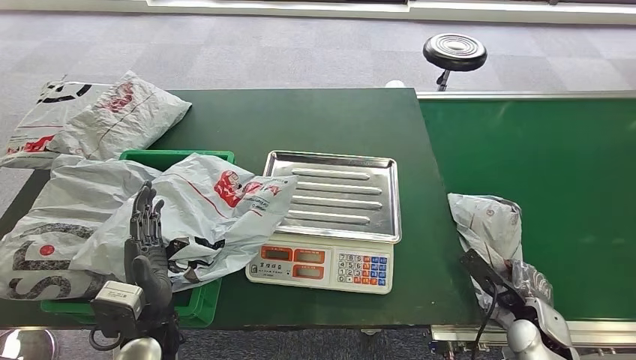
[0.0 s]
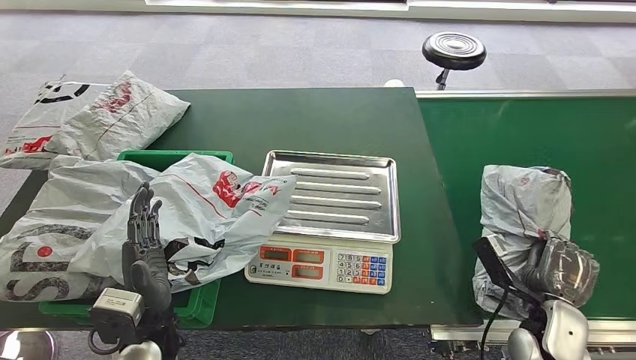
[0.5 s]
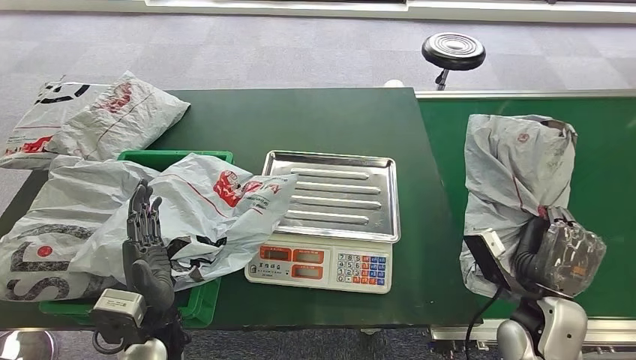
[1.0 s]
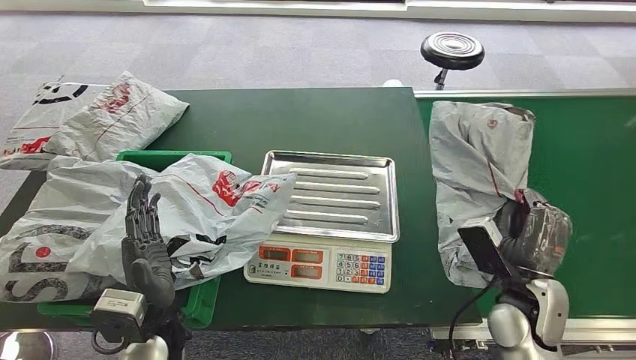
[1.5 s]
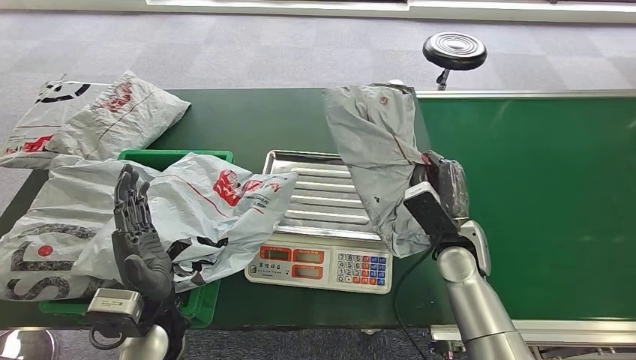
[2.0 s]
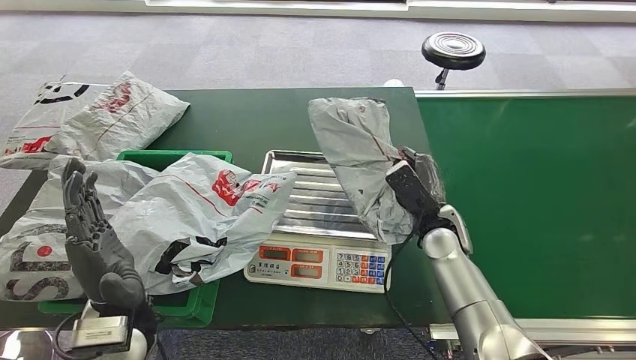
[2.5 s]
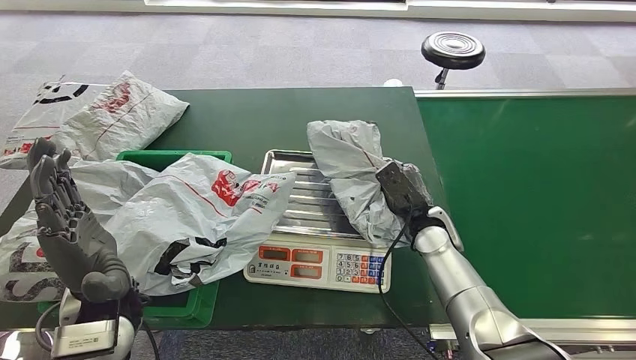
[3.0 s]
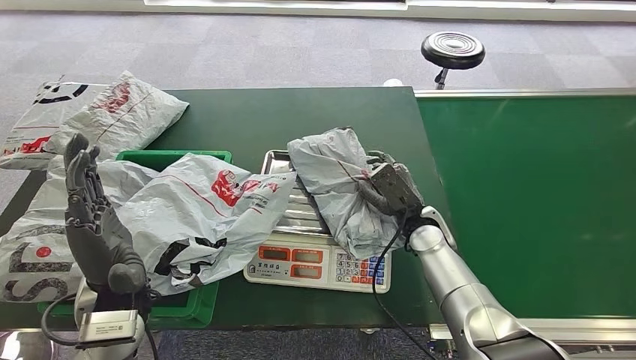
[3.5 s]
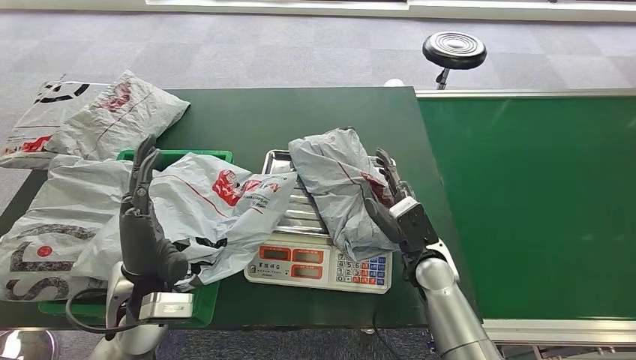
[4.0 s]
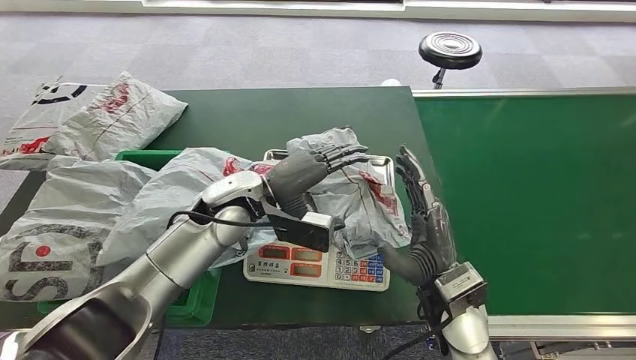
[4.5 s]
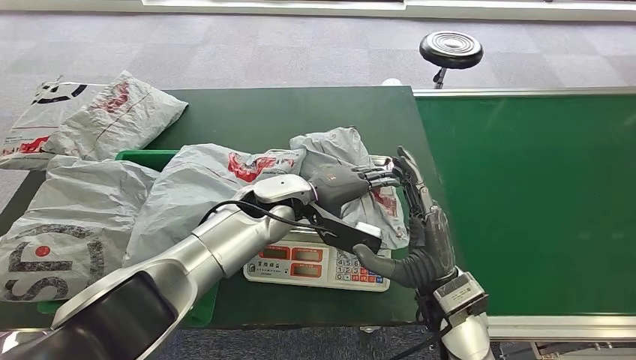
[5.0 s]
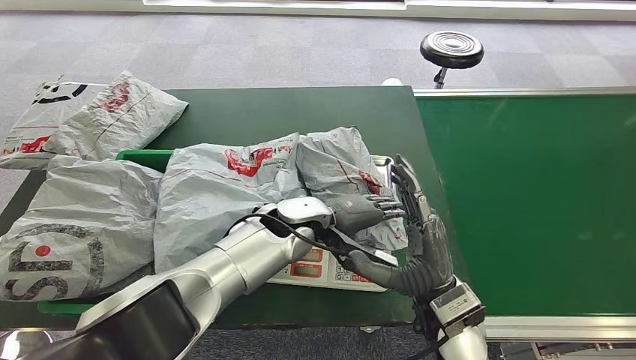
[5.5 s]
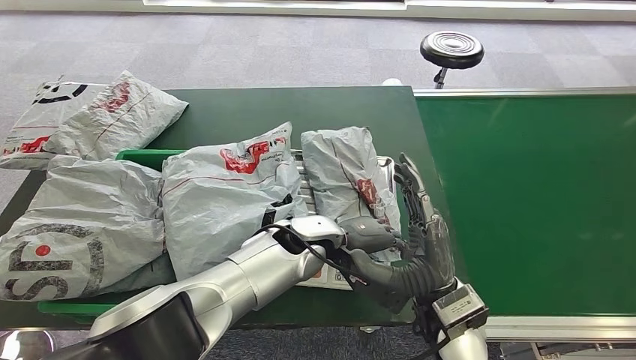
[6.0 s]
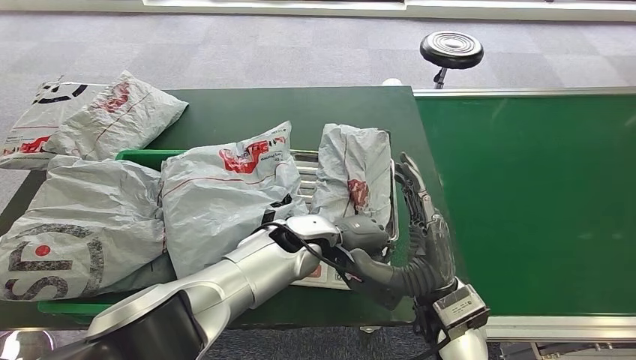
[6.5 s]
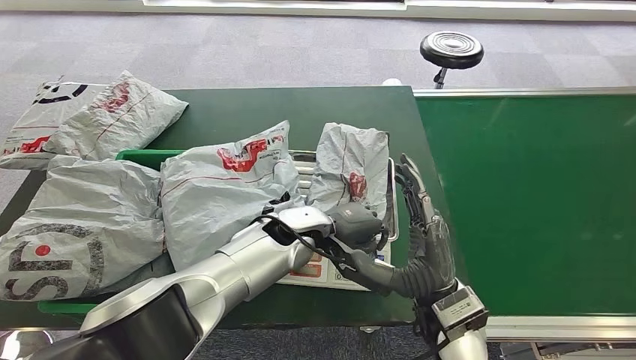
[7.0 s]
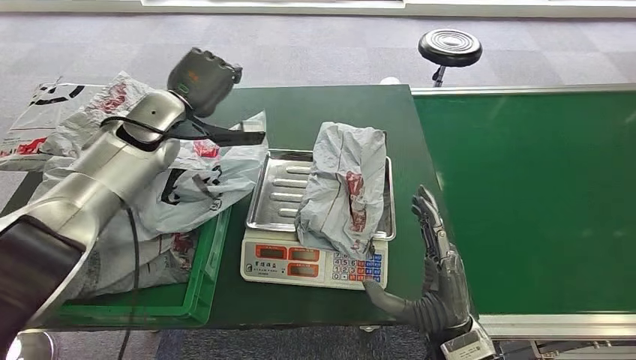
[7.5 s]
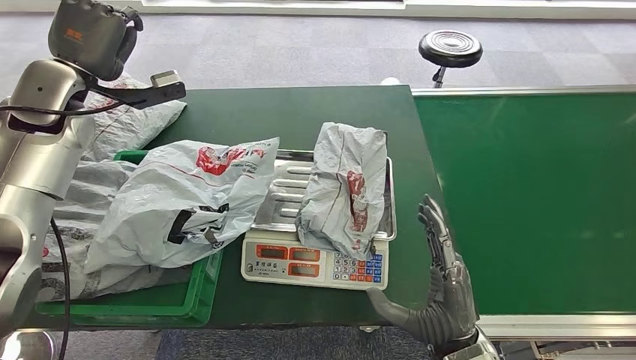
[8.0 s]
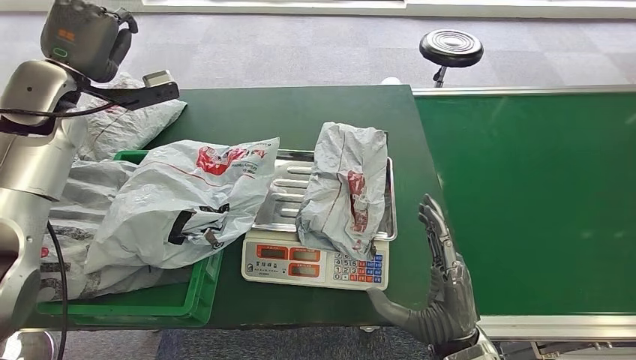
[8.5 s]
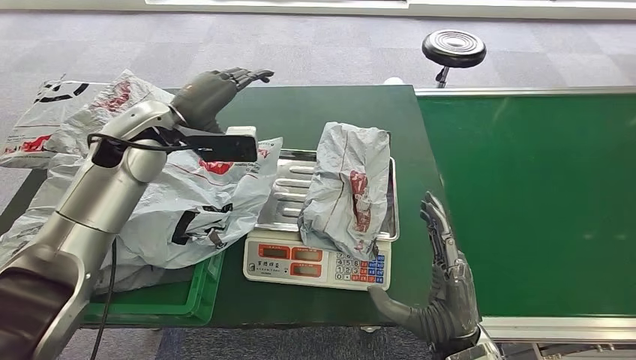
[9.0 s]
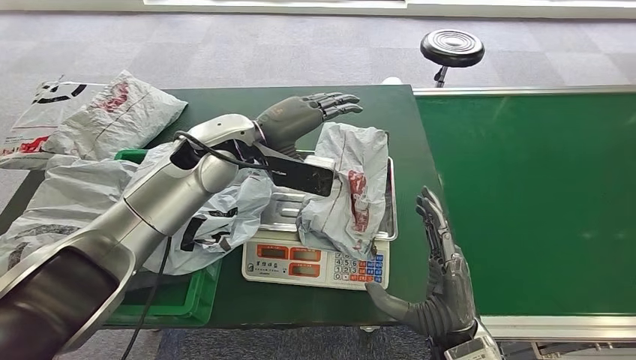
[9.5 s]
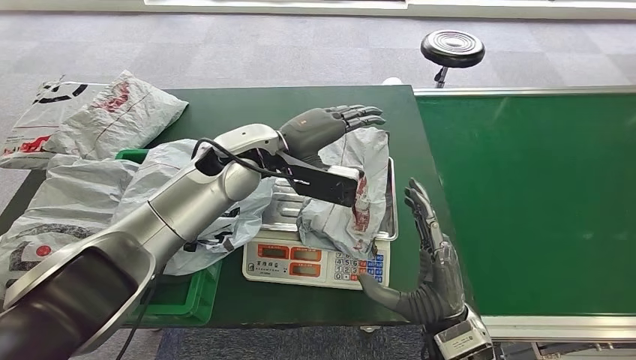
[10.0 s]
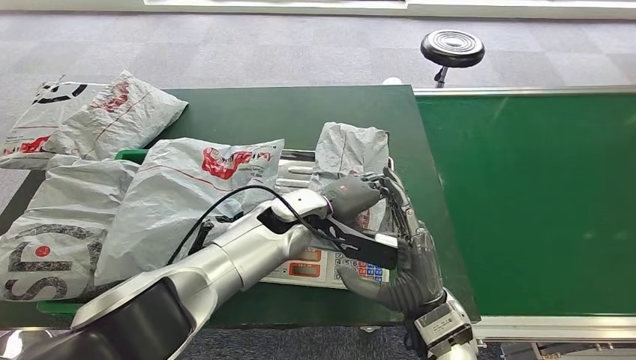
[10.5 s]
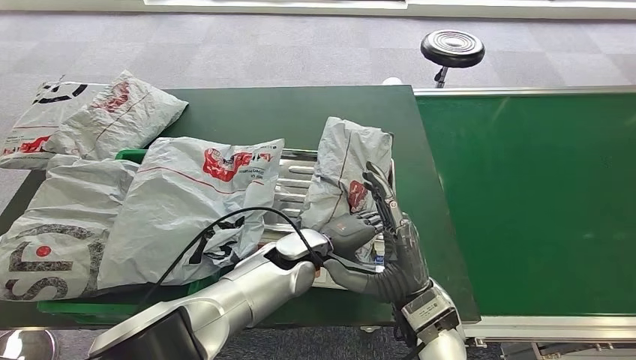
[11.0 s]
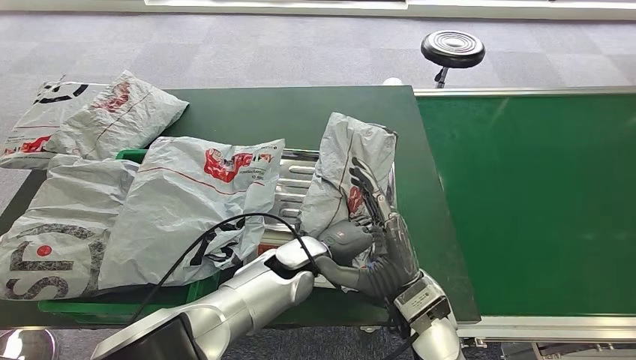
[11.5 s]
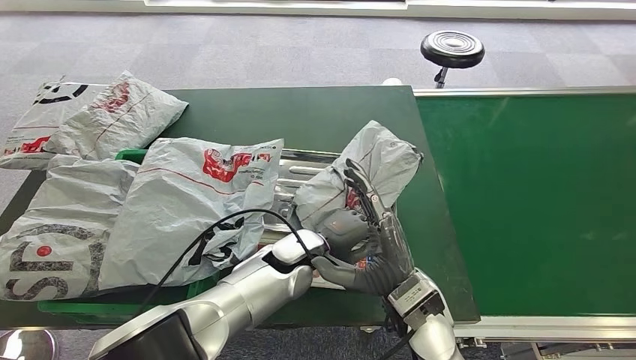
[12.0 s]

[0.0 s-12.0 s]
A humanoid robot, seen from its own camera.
Step, 0.0 to 1.0 s: Pick up the parcel from the conveyor belt.
Step, 1.5 to 3.0 s: Place the parcel onto the inbound machine.
0.0 to 2.0 s: The right hand is displaced to the left, upward and forward by roughly 20 cm.
2.0 to 4.0 s: The right hand shifts some 5 cm to the left, while the left hand shifts roughly 5 cm upward.

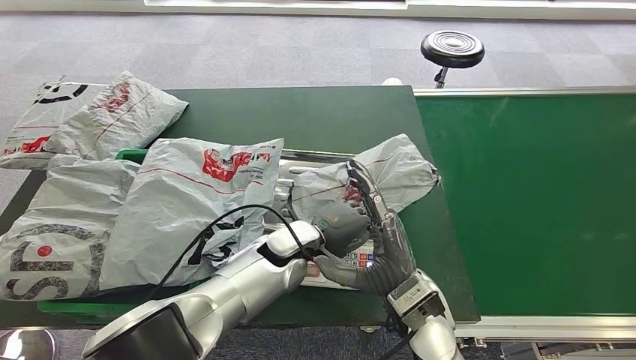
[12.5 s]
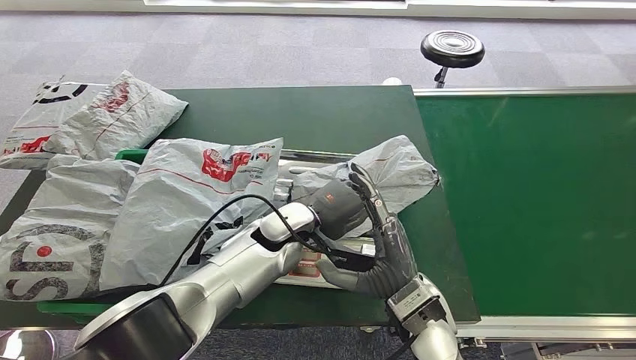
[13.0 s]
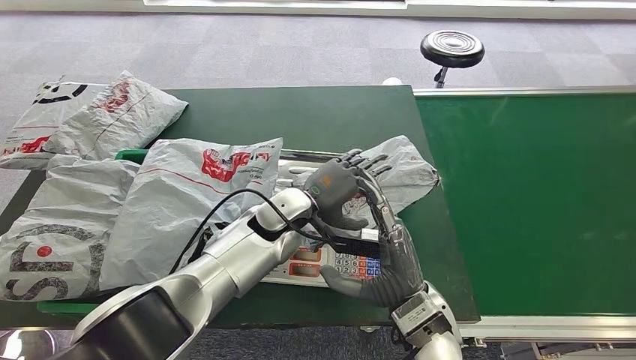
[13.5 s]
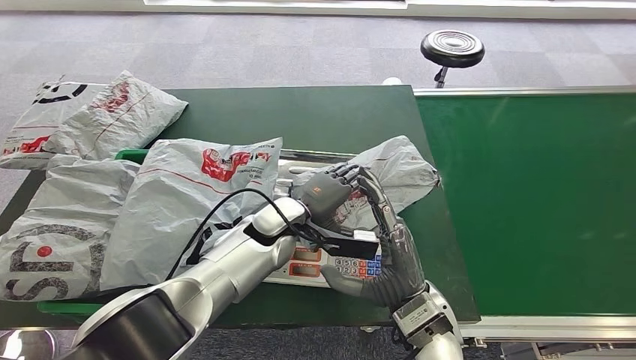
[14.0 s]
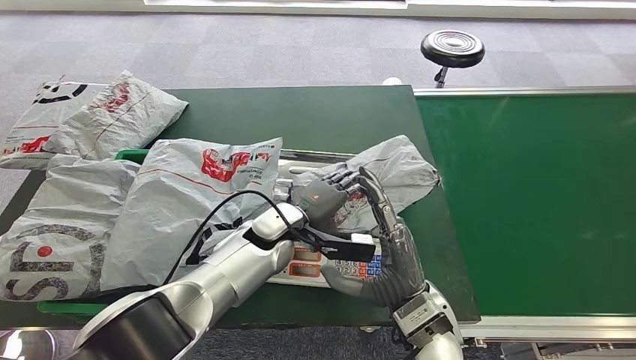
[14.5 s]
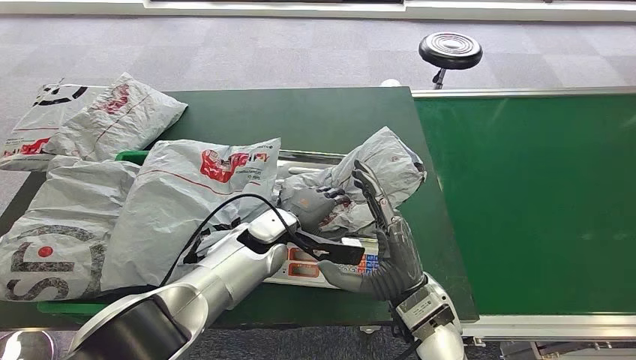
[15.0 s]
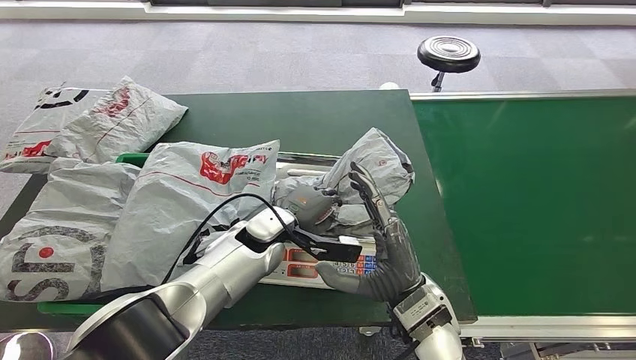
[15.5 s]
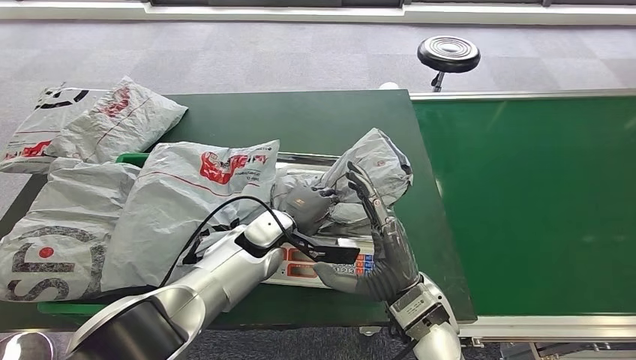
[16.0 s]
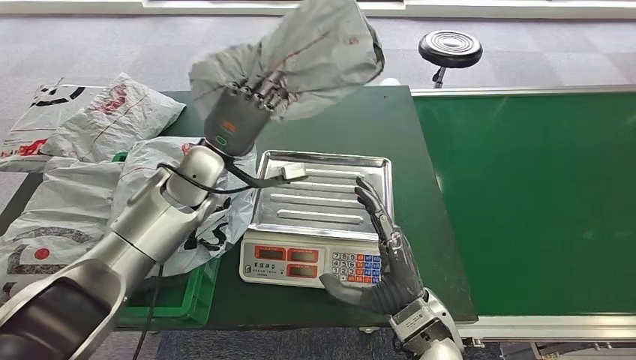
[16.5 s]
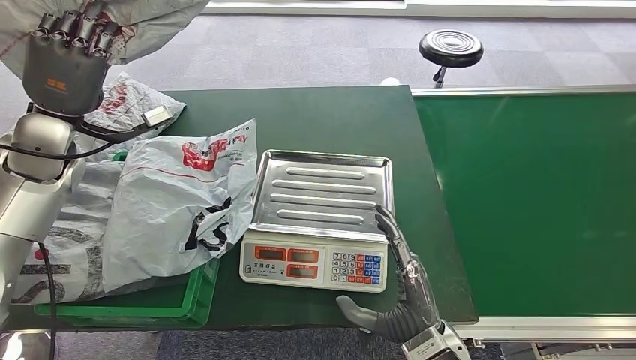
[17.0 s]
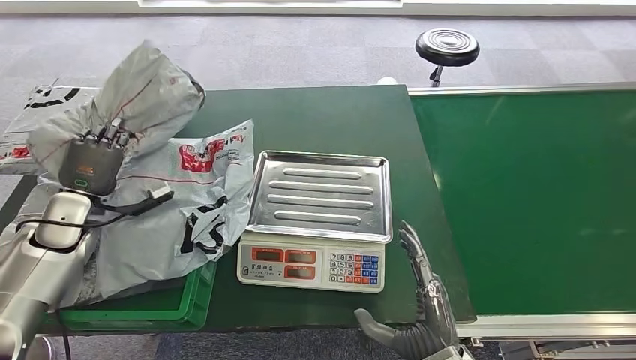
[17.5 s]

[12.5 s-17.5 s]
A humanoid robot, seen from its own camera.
Step, 14.0 to 16.5 s: Pick up the parcel from the inbound machine.
Step, 17.0 to 17.5 s: Place the parcel into the delivery box.
